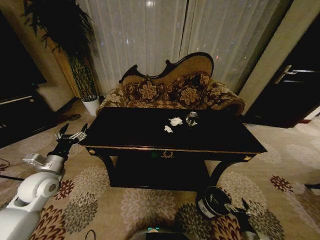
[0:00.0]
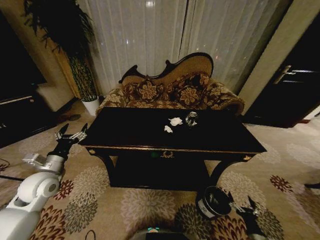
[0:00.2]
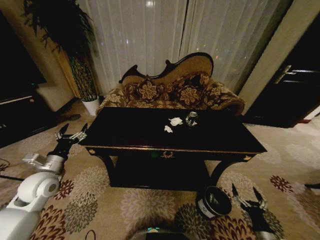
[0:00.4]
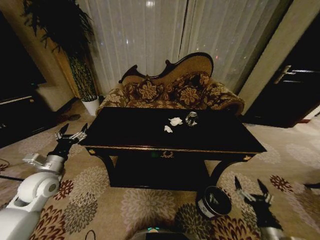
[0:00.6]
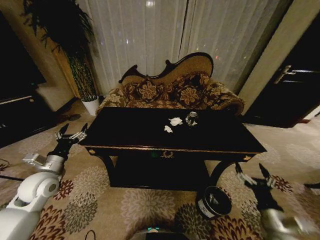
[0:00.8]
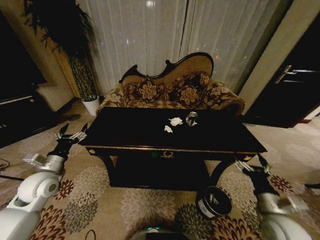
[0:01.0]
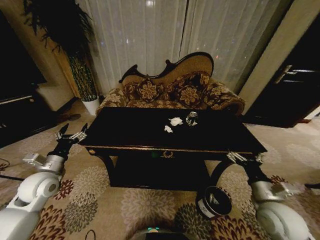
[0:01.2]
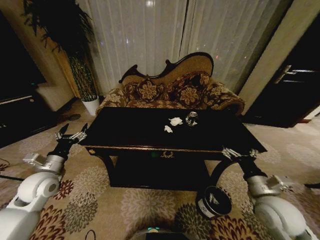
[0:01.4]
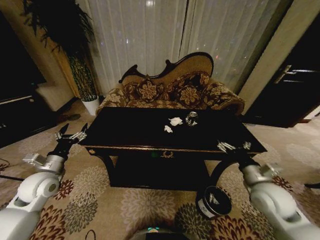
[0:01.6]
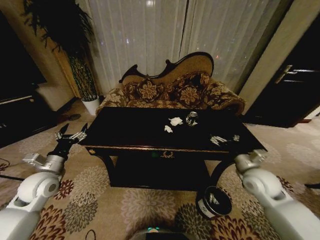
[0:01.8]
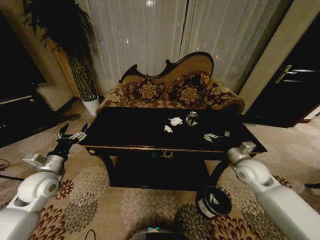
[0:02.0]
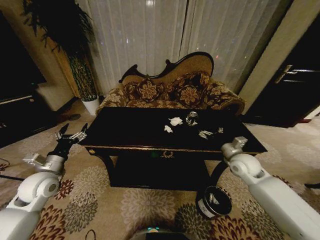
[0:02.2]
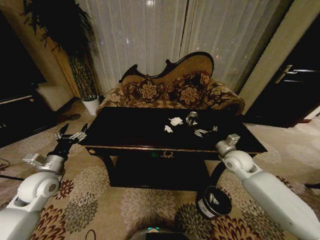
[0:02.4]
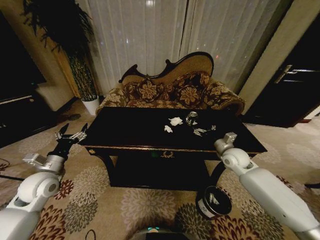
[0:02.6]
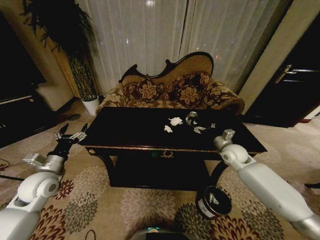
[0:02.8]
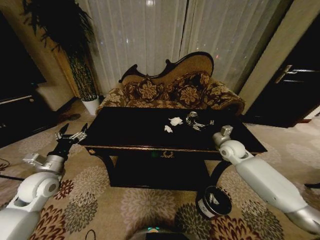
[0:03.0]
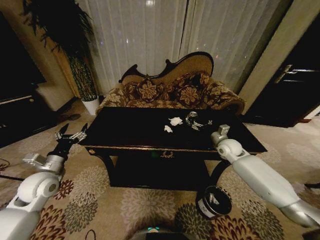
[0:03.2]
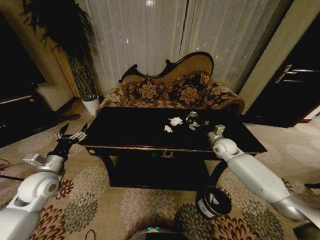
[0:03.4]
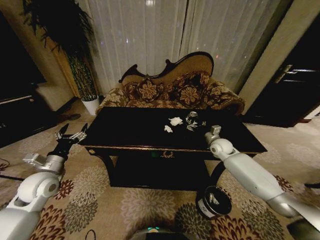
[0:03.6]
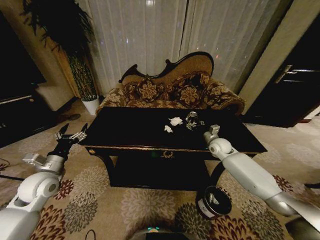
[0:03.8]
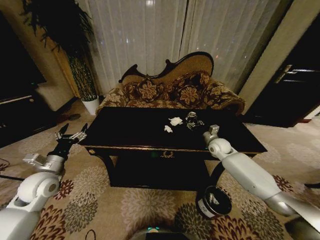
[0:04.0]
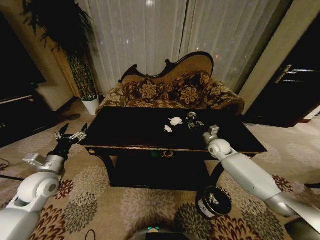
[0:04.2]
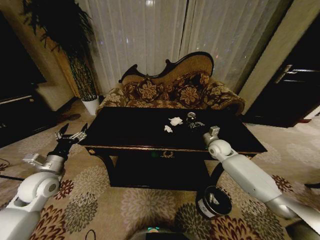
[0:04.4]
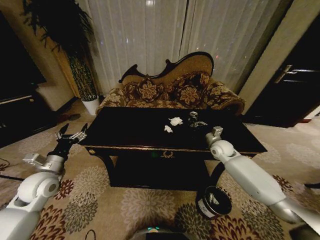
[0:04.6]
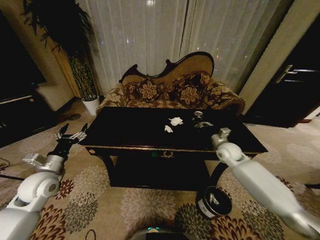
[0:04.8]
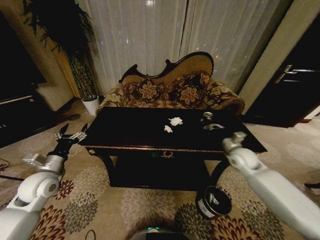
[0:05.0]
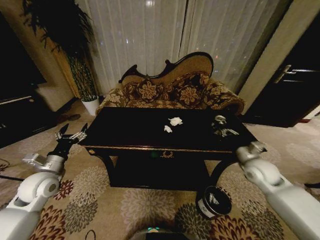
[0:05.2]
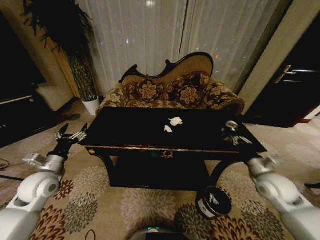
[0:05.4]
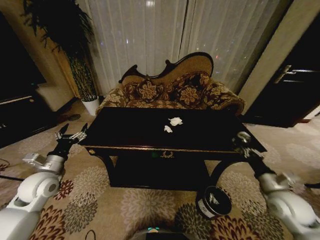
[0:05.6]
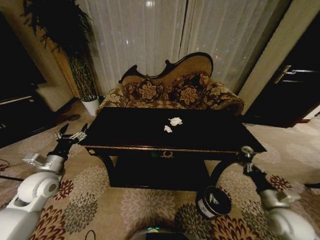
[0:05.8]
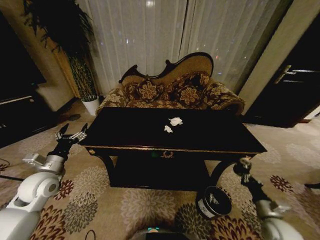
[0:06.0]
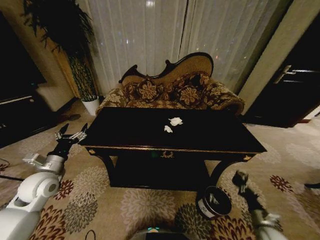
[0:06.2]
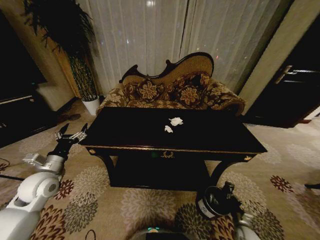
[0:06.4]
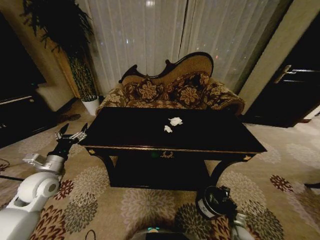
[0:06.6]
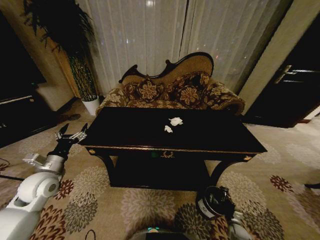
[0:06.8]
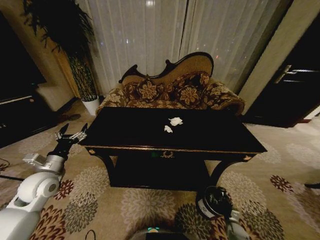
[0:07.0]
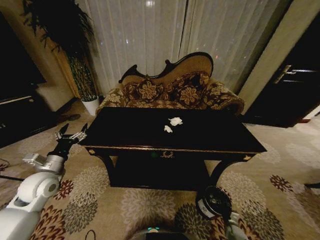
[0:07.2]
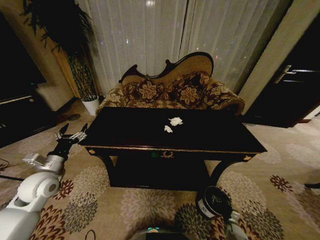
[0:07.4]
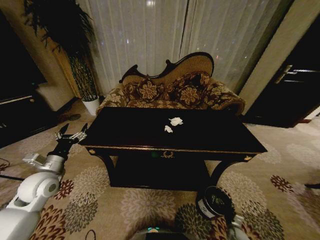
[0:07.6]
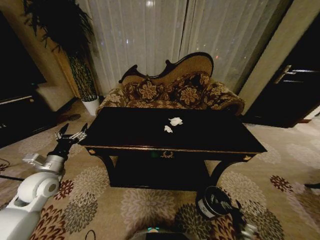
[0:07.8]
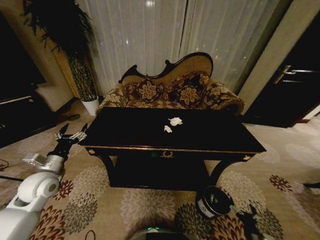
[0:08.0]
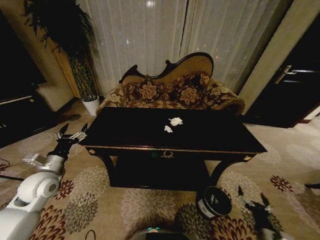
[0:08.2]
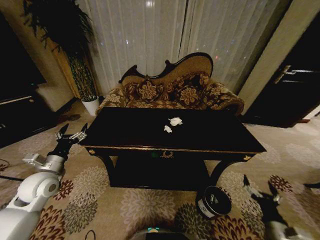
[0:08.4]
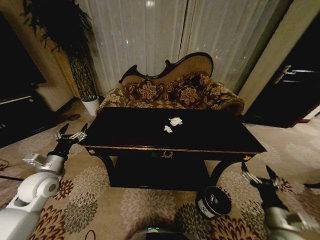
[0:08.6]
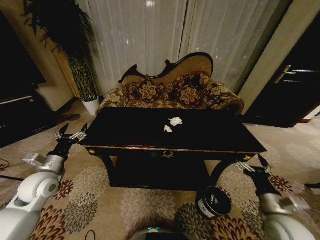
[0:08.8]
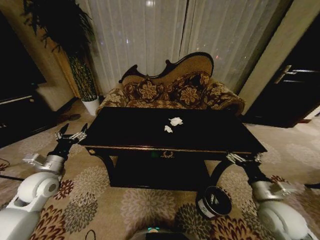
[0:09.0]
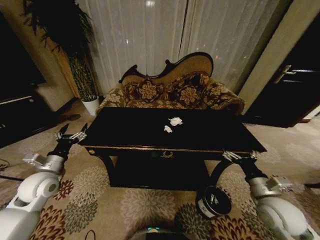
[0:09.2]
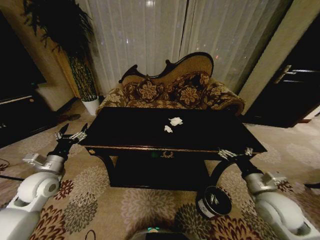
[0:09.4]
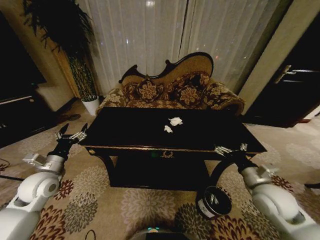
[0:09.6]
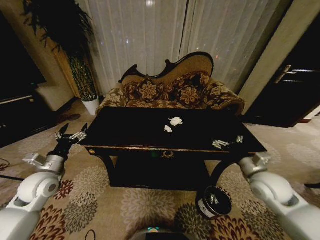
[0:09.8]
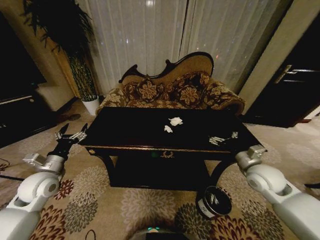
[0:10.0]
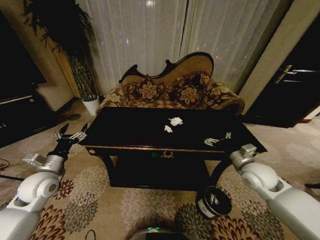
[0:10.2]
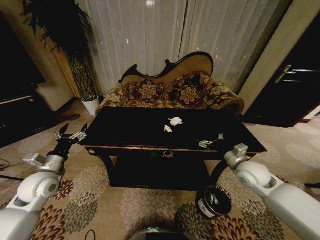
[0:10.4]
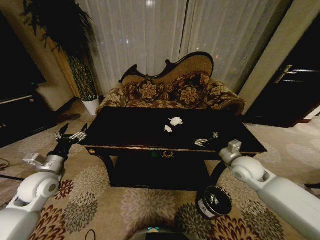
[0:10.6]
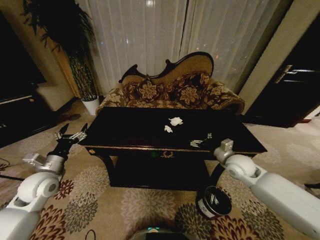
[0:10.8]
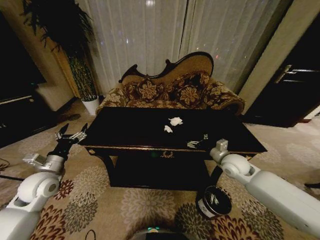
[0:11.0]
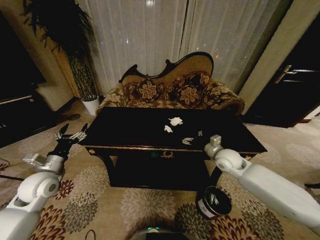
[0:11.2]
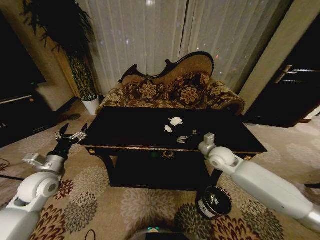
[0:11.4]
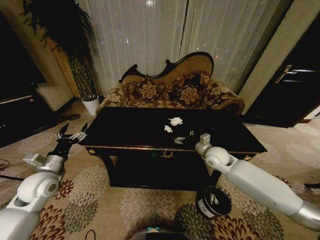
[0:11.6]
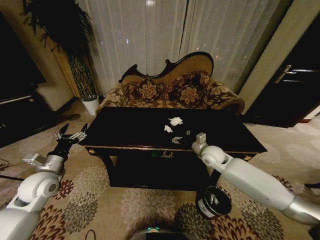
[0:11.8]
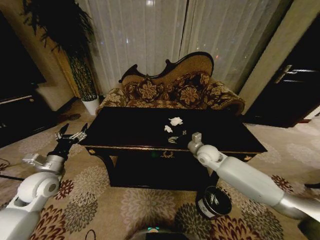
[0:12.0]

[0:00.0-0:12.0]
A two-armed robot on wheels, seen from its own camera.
Task of the whole recording: Move to the front of the table and place the trash on the table into the trash bin.
0:00.0 to 0:01.6: The right gripper is displaced upward and forward by some 35 cm.
0:01.6 to 0:03.0: The right gripper shifts roughly 20 cm forward.
0:03.0 to 0:04.4: The right gripper moves about 5 cm, and closes.
0:04.4 to 0:06.0: The right gripper moves backward, about 30 cm.
0:06.0 to 0:07.6: The right gripper shifts approximately 25 cm downward, and opens.
0:07.6 to 0:09.0: The right gripper travels upward by roughly 35 cm, and opens.
0:09.0 to 0:10.4: The right gripper moves forward, about 15 cm.
0:10.4 to 0:12.0: The right gripper heads to the left and forward, covering some 15 cm.

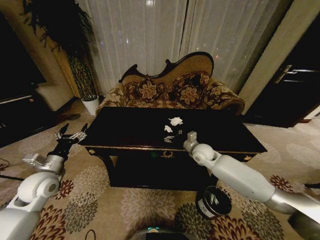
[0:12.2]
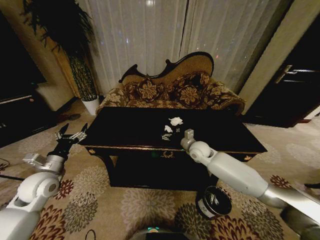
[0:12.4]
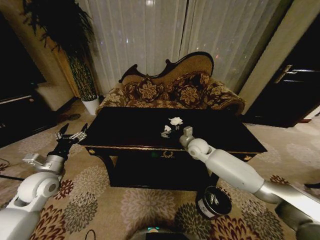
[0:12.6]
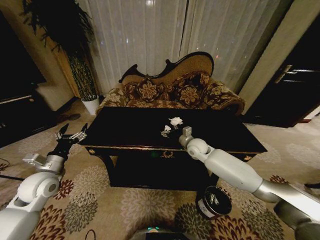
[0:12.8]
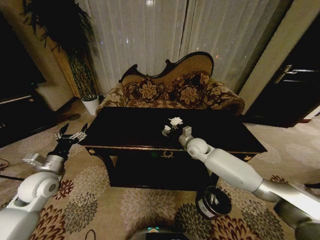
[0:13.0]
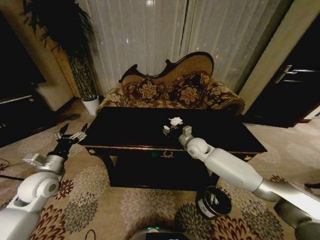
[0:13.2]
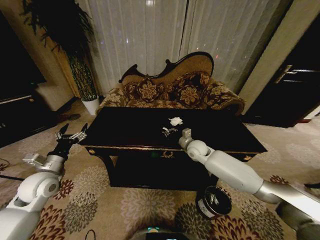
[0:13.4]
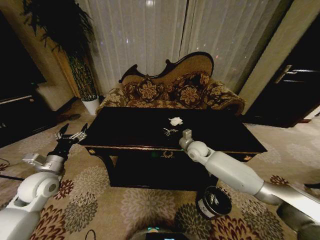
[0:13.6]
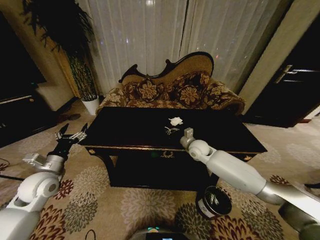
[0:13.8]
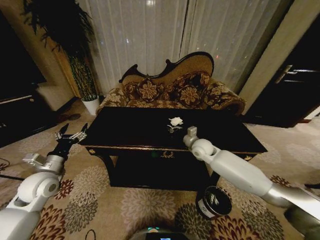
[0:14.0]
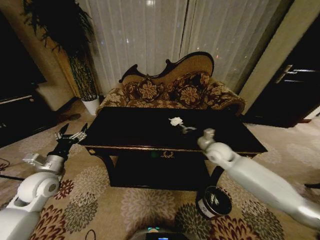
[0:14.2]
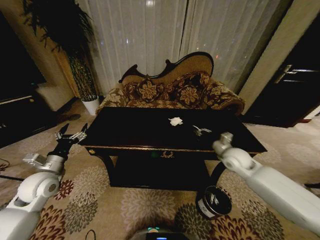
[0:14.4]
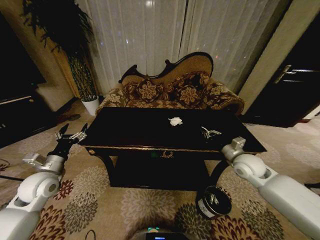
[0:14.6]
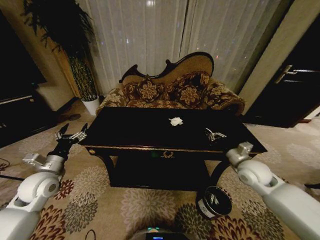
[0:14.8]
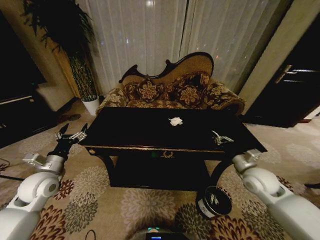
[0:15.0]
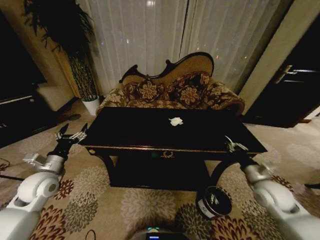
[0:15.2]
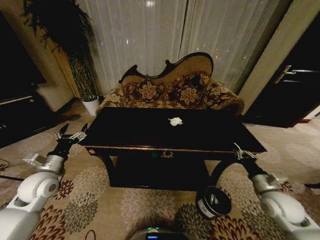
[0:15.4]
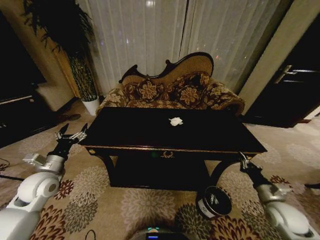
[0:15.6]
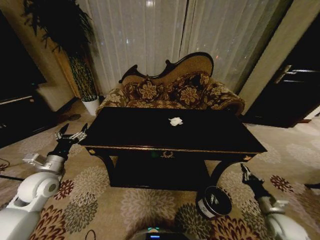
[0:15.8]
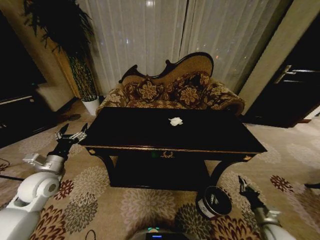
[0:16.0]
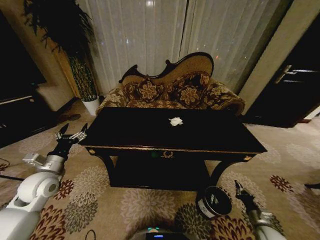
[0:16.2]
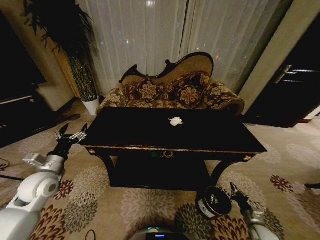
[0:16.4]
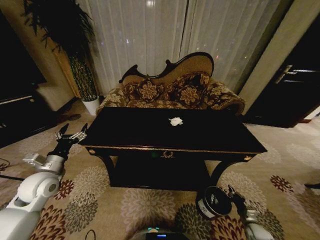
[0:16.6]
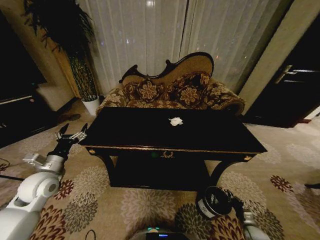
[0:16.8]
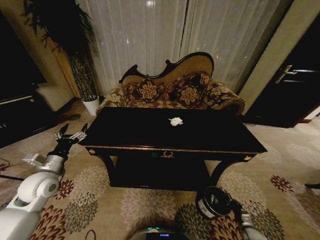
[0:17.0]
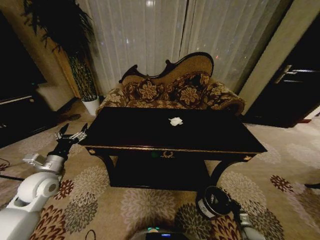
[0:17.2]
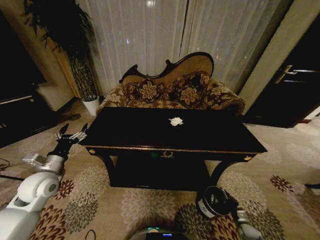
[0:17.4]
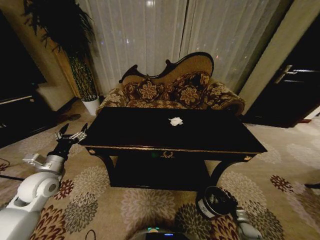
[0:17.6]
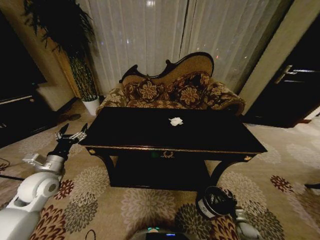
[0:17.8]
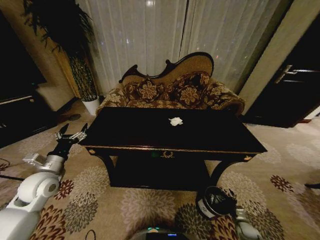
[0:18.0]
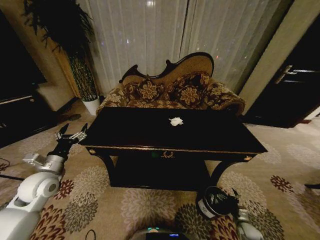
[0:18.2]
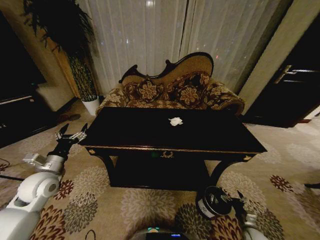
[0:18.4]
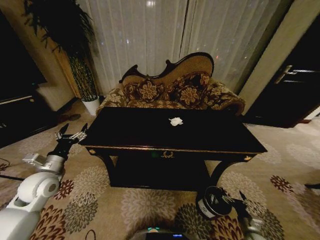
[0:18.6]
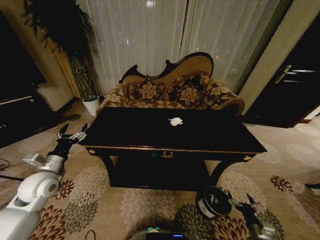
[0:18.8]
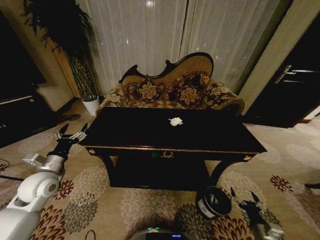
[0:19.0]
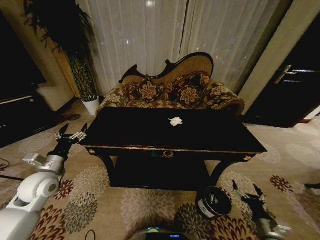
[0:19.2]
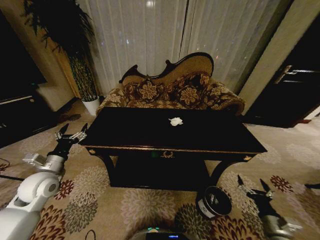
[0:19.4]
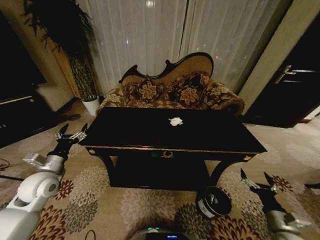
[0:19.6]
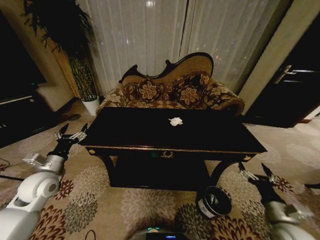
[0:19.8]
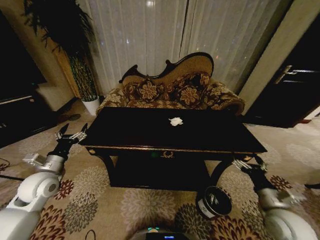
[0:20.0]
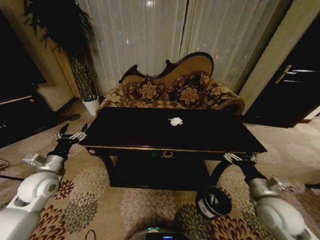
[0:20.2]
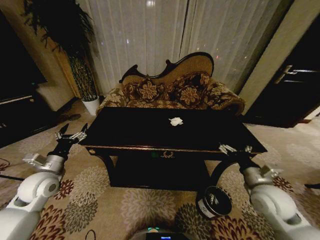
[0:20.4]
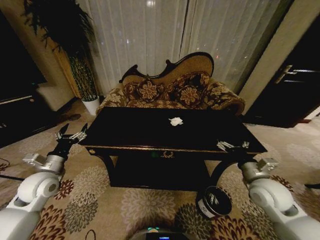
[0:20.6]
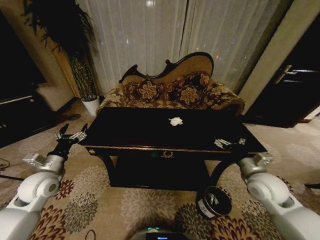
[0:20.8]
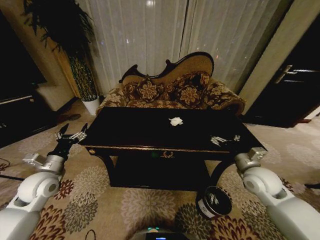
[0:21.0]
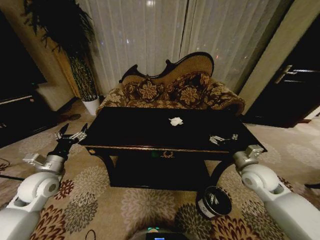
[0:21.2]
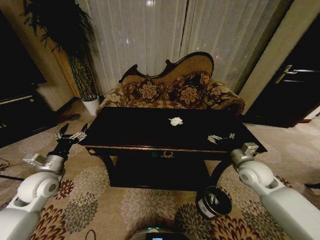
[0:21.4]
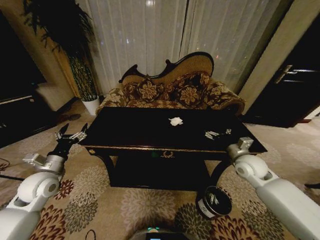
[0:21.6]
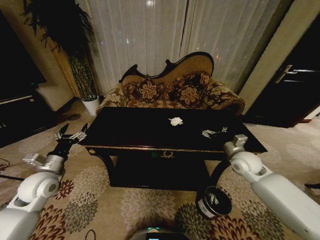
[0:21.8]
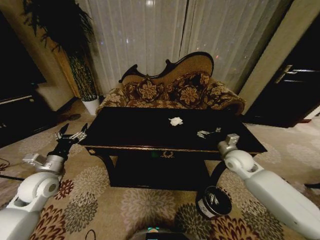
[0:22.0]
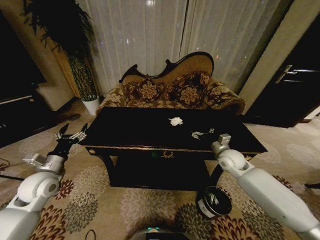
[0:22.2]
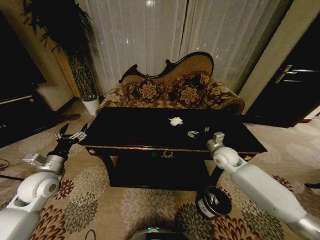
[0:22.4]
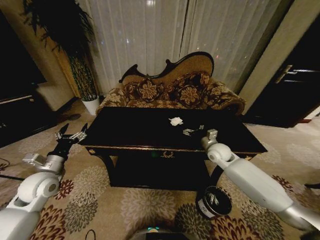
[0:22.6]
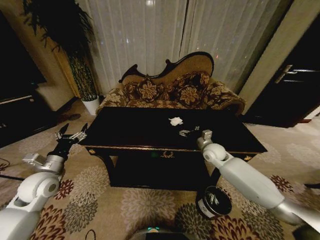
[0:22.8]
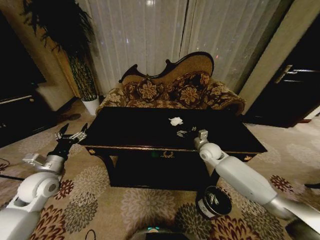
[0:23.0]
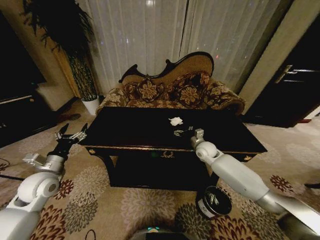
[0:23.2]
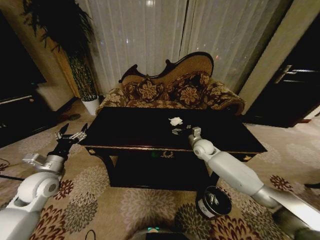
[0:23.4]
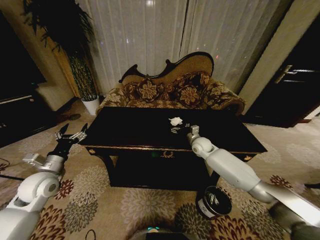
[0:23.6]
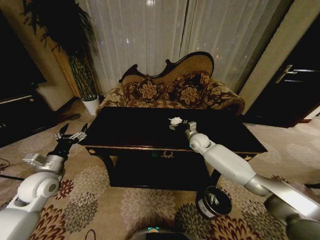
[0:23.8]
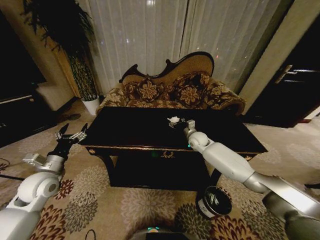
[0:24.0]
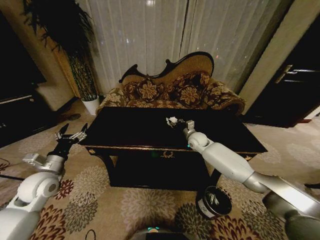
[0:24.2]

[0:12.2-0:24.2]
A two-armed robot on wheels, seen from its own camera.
Task of the whole recording: Move to the front of the table and place the trash on the table into the trash bin.
0:12.2 to 0:13.8: The right gripper closes its fingers.
0:13.8 to 0:15.2: The right gripper shifts roughly 30 cm backward and to the right.
0:15.2 to 0:16.6: The right gripper travels downward by some 30 cm.
0:16.6 to 0:18.2: The right gripper opens its fingers.
0:18.2 to 0:19.8: The right gripper travels upward by roughly 25 cm.
0:19.8 to 0:21.2: The right gripper moves forward and upward, some 20 cm.
0:21.2 to 0:22.6: The right gripper travels forward and to the left by about 15 cm.
0:22.6 to 0:24.2: The right gripper heads forward and to the left, covering some 10 cm, and closes up.
